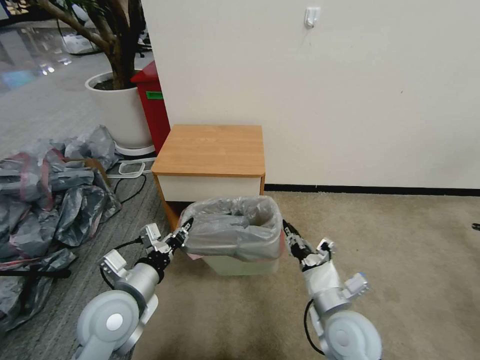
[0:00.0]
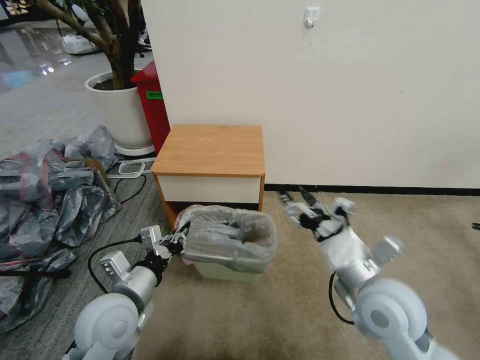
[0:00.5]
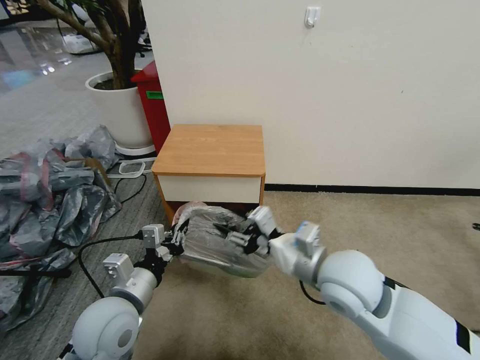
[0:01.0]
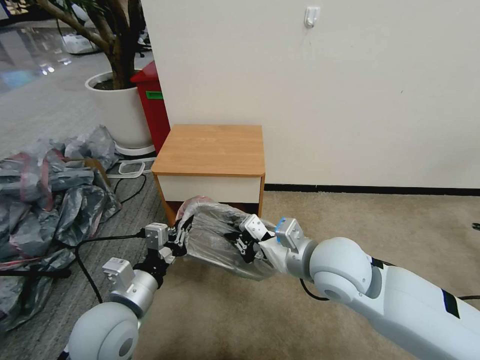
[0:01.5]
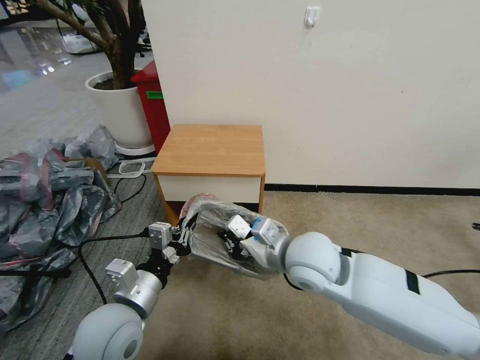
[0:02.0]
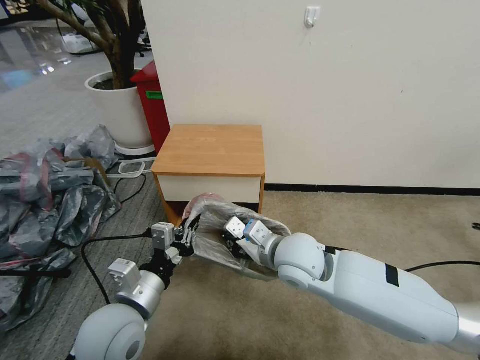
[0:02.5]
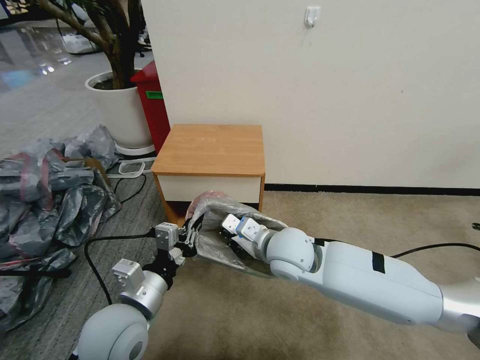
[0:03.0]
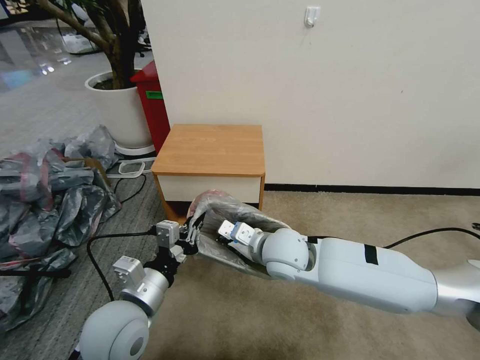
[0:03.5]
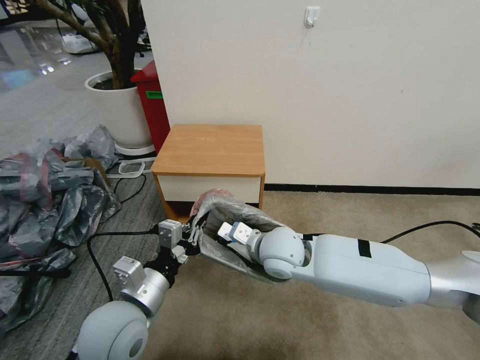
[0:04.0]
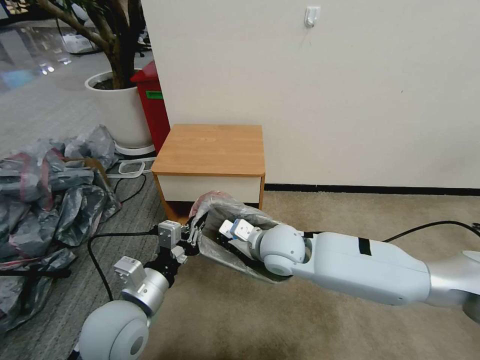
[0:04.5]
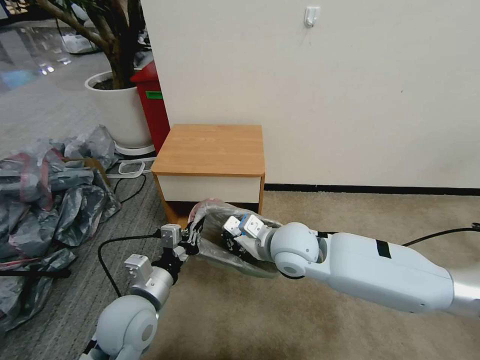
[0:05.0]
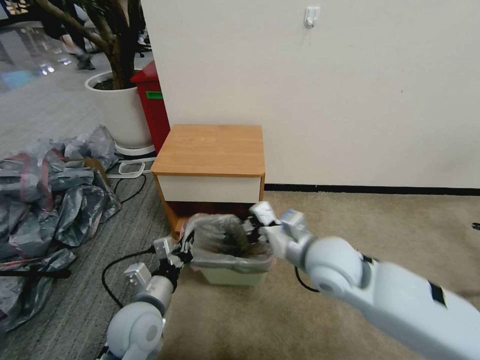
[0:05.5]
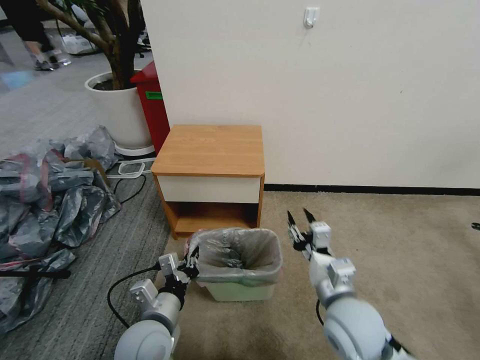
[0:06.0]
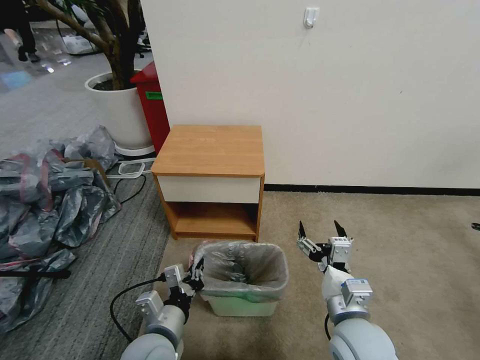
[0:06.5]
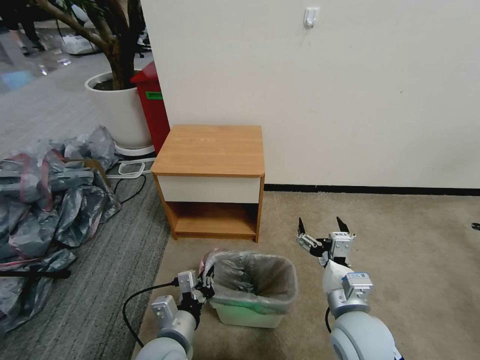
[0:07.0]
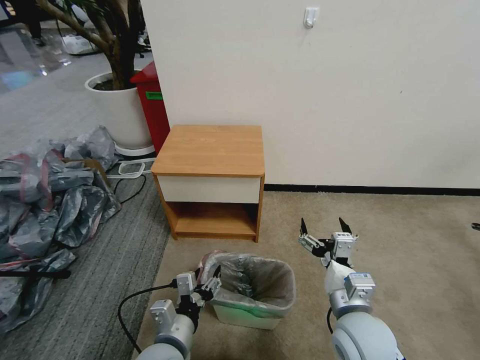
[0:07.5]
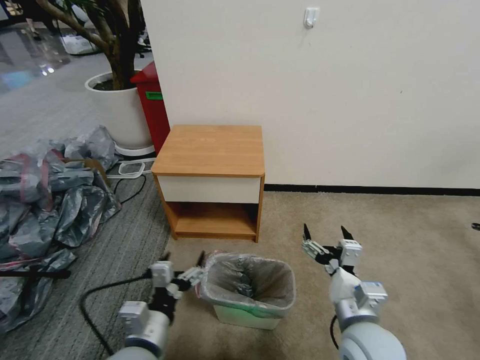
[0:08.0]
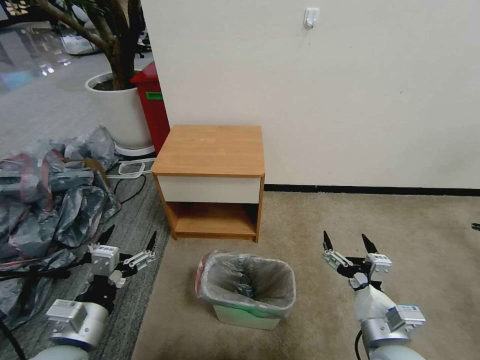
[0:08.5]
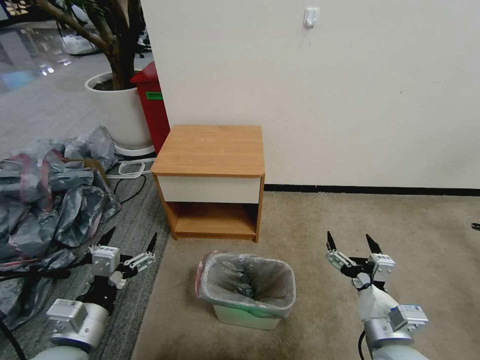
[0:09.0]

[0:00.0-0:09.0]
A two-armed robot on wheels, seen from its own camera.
Task of the whole recording: Pick up the garbage bag from the table and place it over the trash can.
0:00.0 to 0:02.0: The right gripper goes approximately 20 cm upward, forward and to the left, and opens, then closes once more.
0:02.0 to 0:04.5: The right gripper moves forward and downward, roughly 10 cm.
0:04.5 to 0:07.0: The right gripper moves backward and to the right, roughly 20 cm, and opens; the left gripper travels downward and to the right by some 15 cm.
0:07.0 to 0:09.0: The right gripper shifts approximately 10 cm to the right and backward, while the left gripper moves to the left and upward, some 15 cm, and opens up.

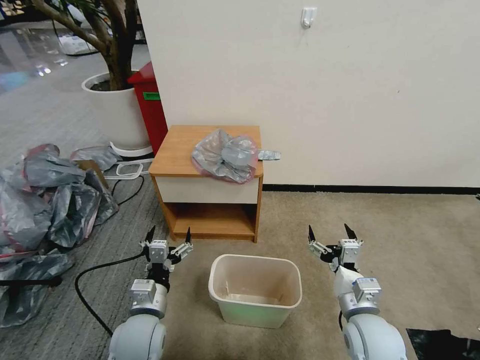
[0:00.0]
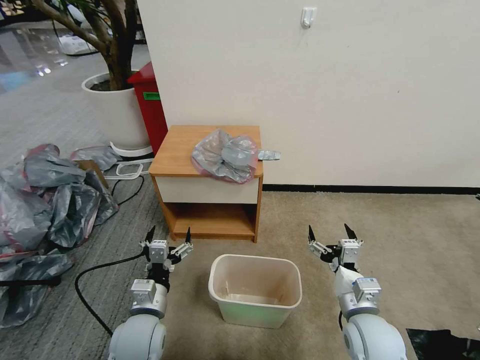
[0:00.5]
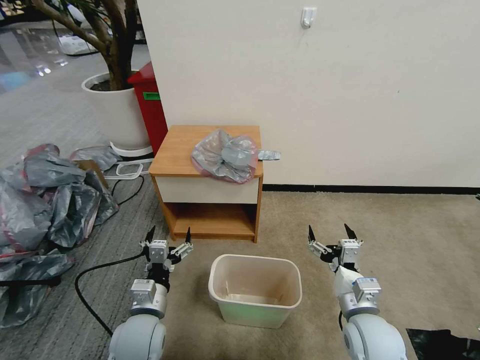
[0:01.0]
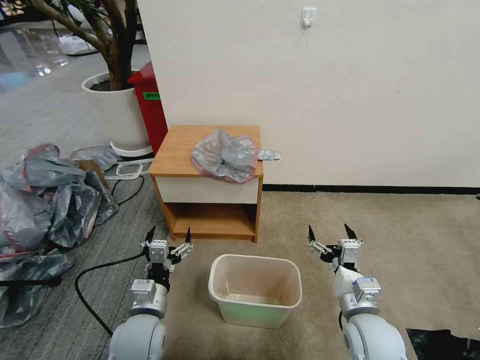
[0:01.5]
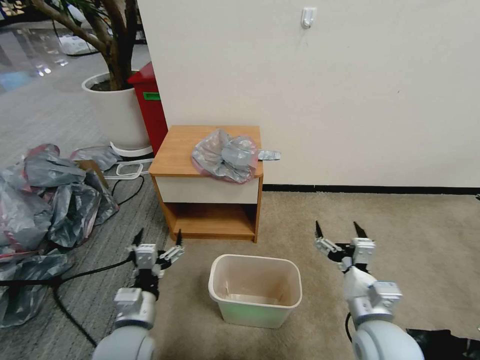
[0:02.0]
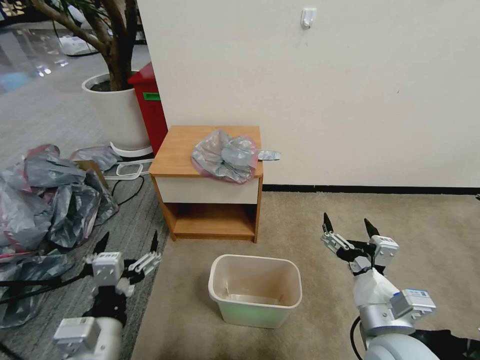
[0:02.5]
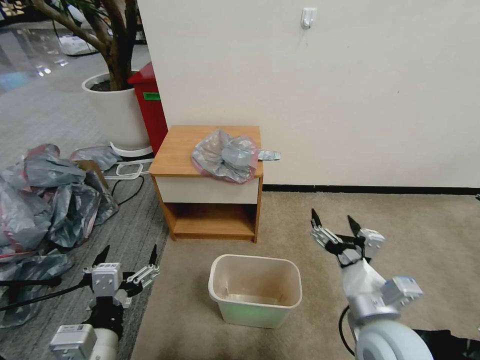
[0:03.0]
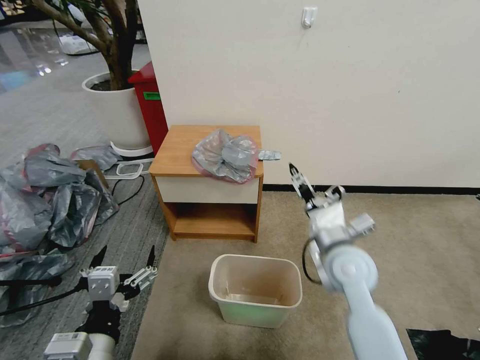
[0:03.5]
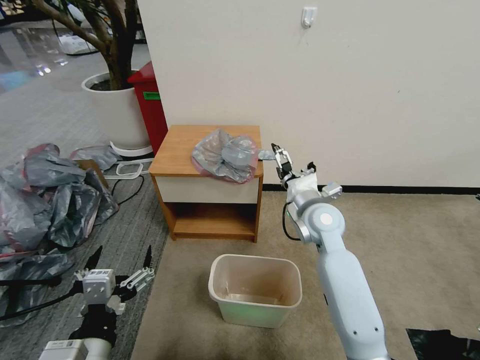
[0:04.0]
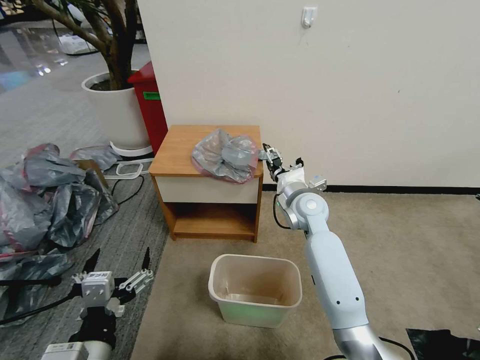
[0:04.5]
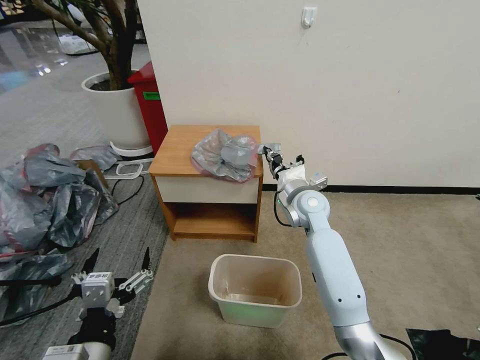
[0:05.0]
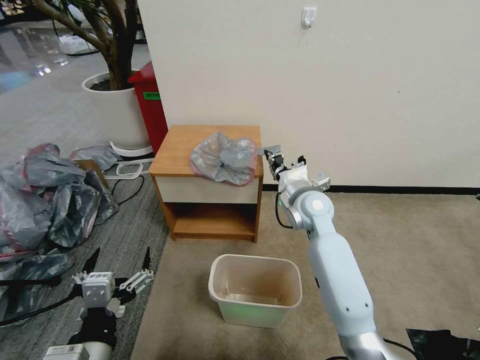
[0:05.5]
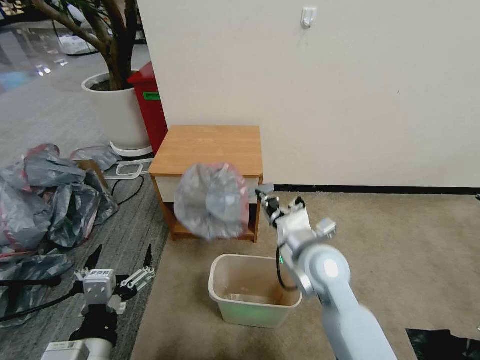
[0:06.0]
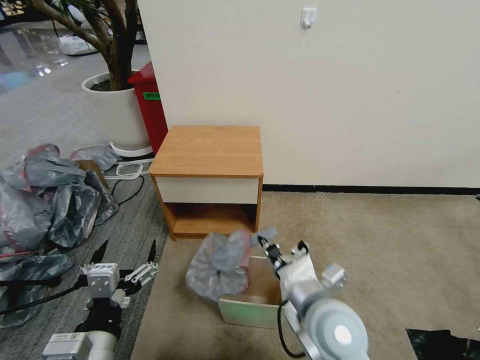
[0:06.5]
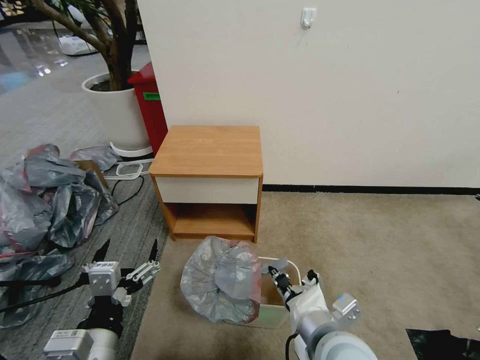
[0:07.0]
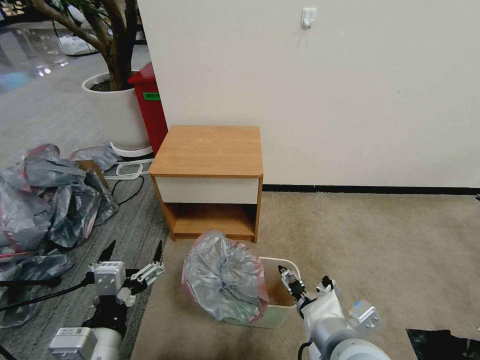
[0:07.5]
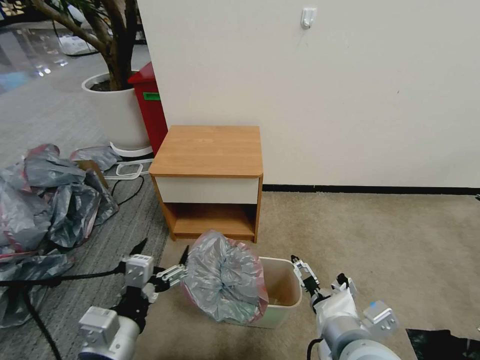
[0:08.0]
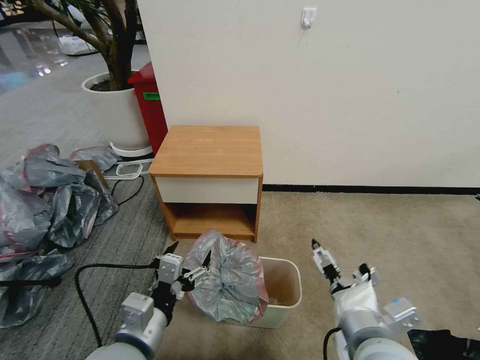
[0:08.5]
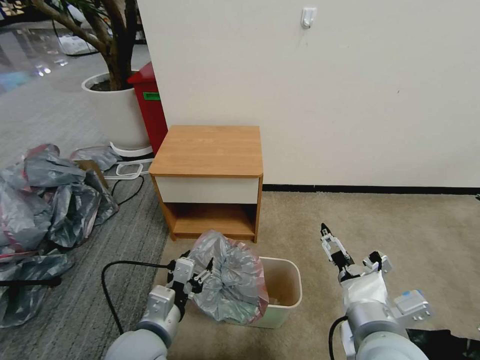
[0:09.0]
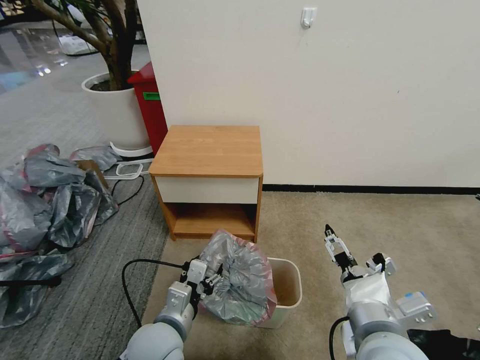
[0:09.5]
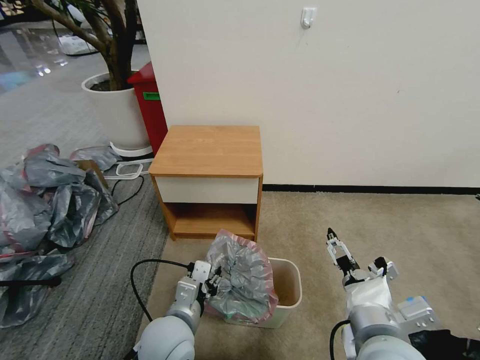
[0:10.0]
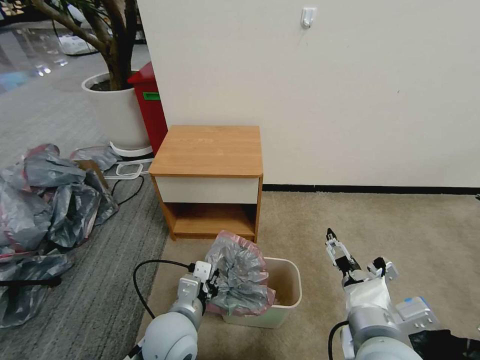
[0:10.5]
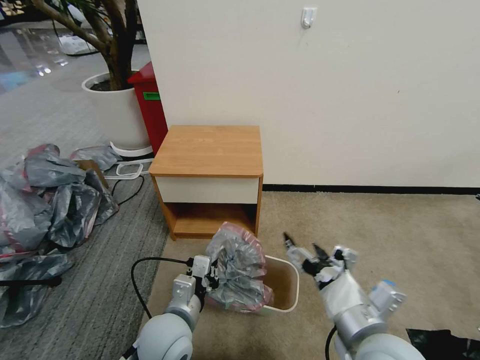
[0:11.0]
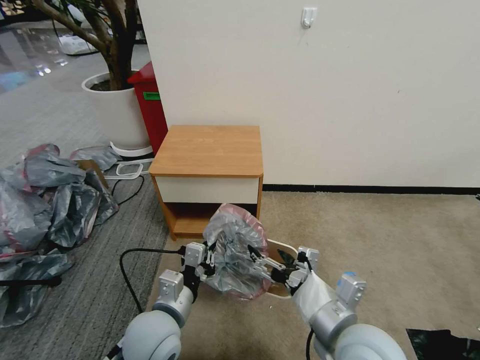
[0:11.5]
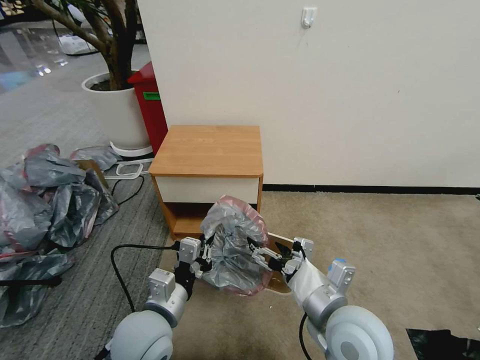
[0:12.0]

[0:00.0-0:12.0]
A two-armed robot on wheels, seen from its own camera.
Task of the whole recording: Pick up the garbage bag from the table and place it over the trash can.
0:02.0 to 0:04.0: The right gripper goes approximately 25 cm forward; the left gripper shifts about 15 cm backward and upward.
0:04.0 to 0:06.0: The right gripper moves backward, about 10 cm, and closes its fingers.
0:06.0 to 0:08.0: The right gripper is displaced backward by some 15 cm, and opens up.
0:08.0 to 0:10.0: The left gripper heads downward, forward and to the right, covering about 15 cm, and closes.
0:10.0 to 0:12.0: The right gripper moves about 5 cm; the left gripper closes.

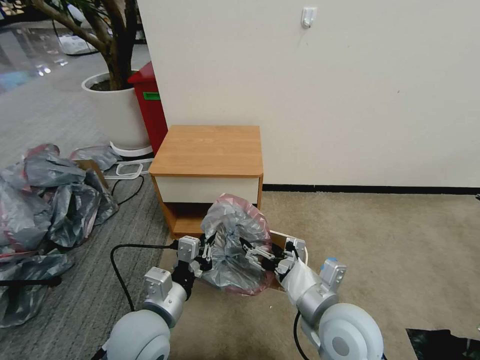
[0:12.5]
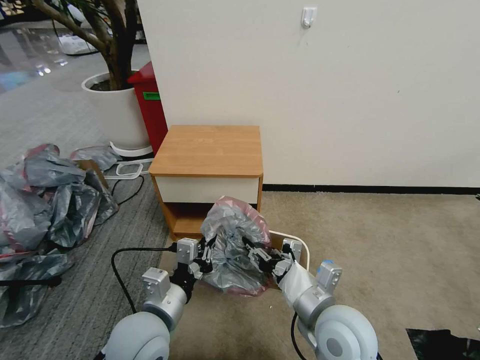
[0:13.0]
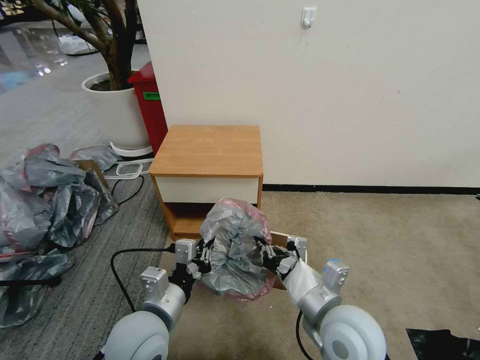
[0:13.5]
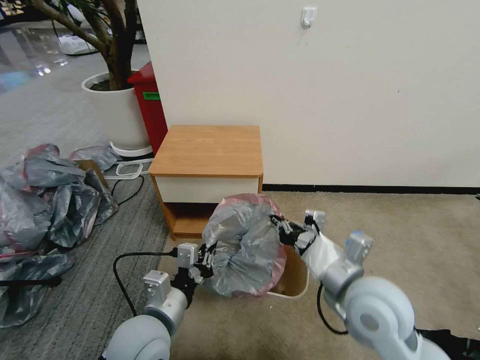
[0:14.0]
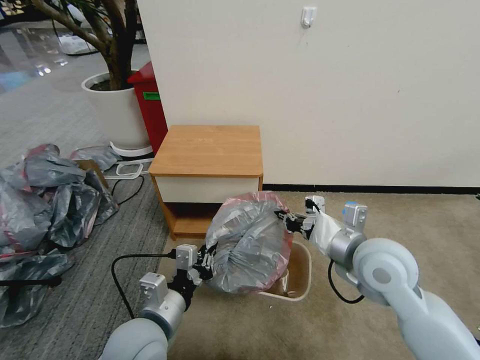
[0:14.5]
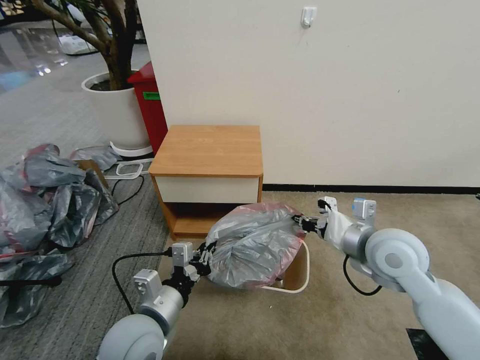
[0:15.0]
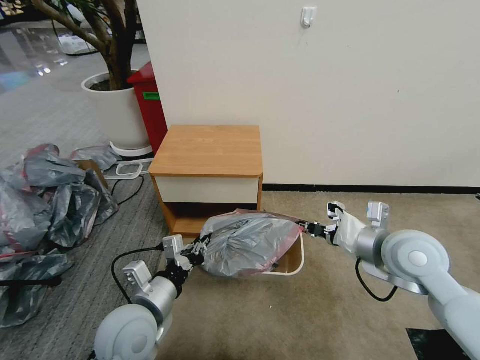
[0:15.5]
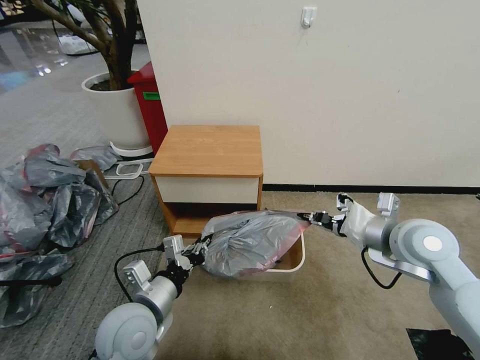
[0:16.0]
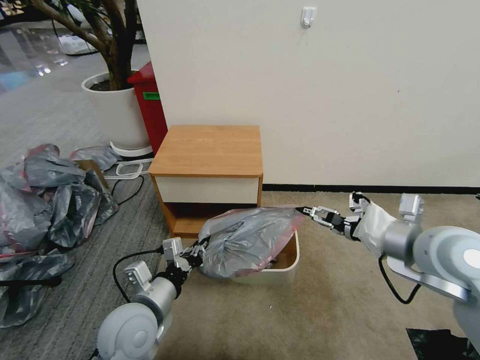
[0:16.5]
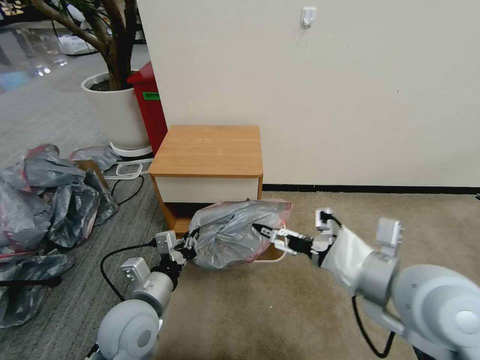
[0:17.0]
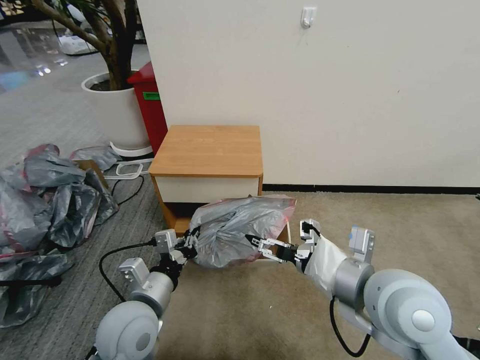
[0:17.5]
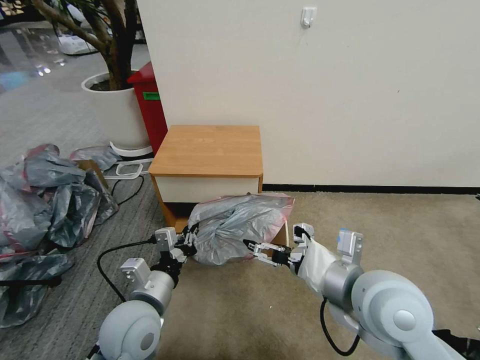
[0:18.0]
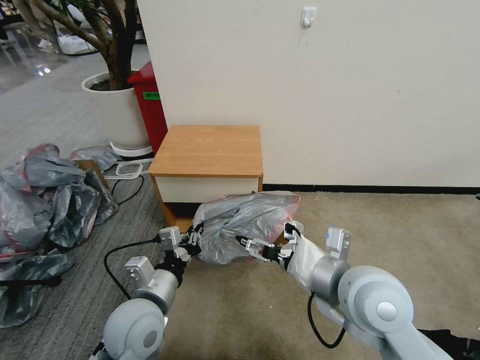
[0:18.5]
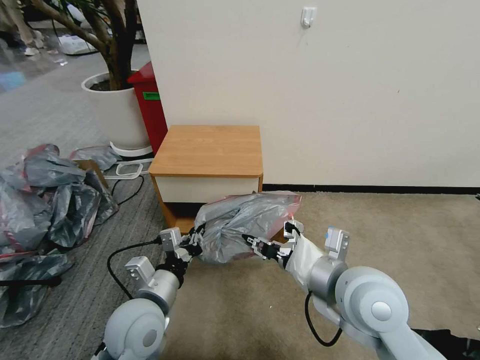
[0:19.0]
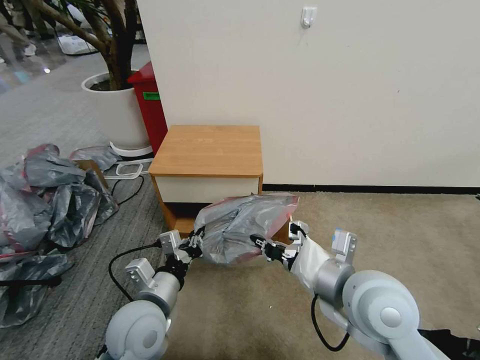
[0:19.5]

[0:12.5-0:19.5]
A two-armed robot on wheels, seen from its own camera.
Task of the whole recording: Pick up the garbage bag from the table and place it over the trash can.
0:12.5 to 0:14.5: The right gripper moves forward, to the right and upward, some 15 cm, and closes.
0:14.5 to 0:16.0: The right gripper travels to the right by some 10 cm.
0:16.0 to 0:17.5: The right gripper shifts some 15 cm backward and to the left, and opens up.
0:17.5 to 0:19.5: The right gripper closes.
